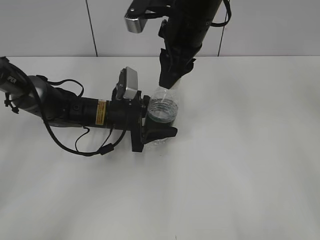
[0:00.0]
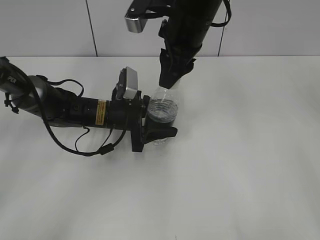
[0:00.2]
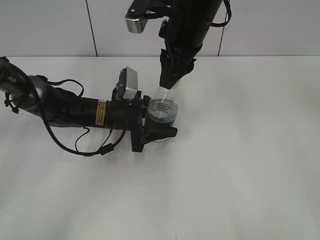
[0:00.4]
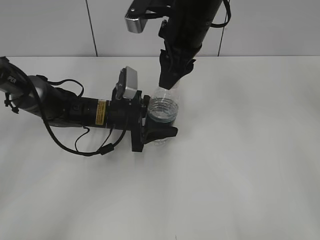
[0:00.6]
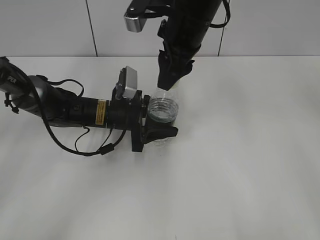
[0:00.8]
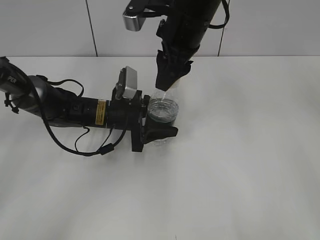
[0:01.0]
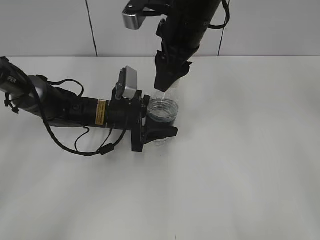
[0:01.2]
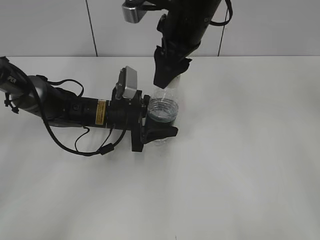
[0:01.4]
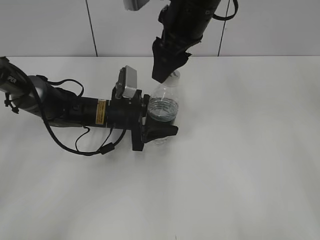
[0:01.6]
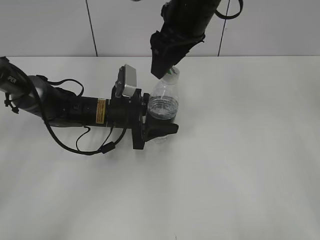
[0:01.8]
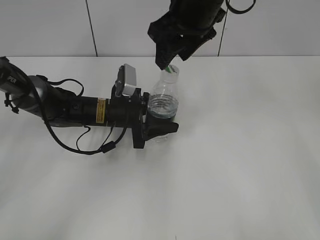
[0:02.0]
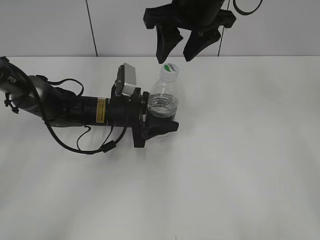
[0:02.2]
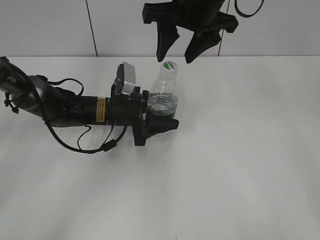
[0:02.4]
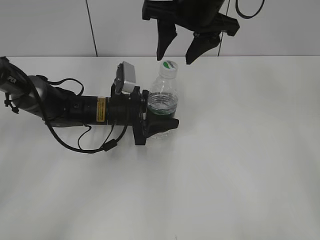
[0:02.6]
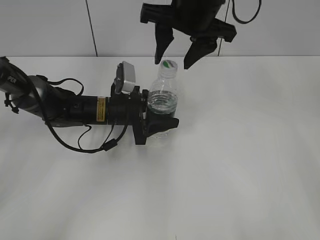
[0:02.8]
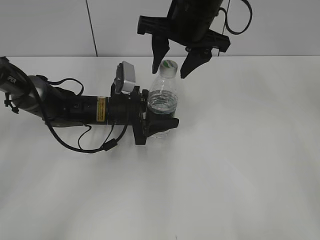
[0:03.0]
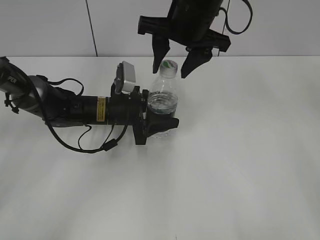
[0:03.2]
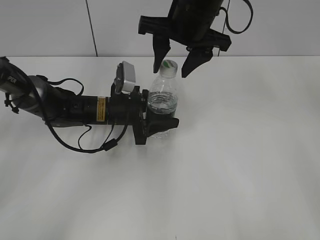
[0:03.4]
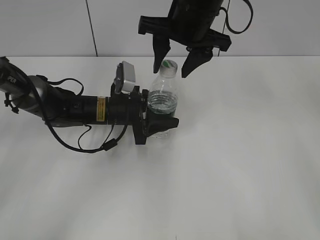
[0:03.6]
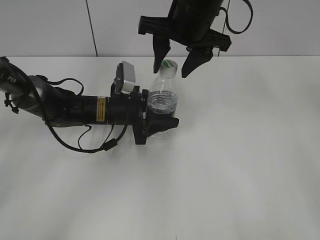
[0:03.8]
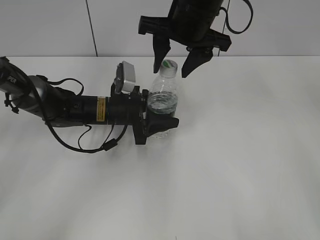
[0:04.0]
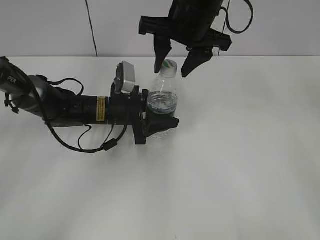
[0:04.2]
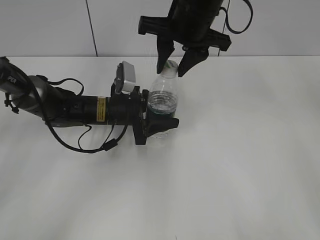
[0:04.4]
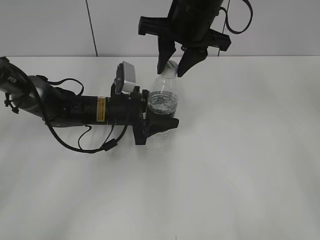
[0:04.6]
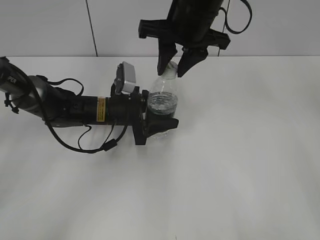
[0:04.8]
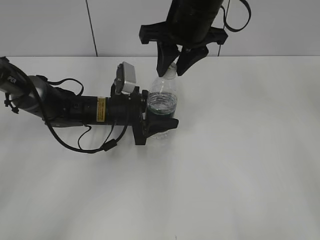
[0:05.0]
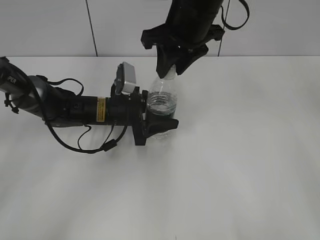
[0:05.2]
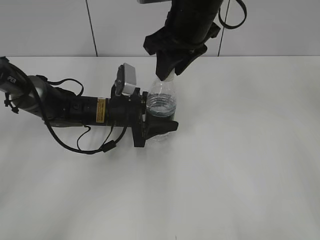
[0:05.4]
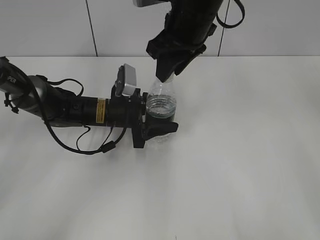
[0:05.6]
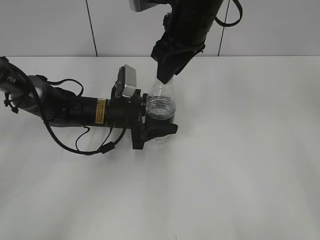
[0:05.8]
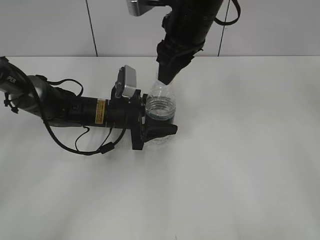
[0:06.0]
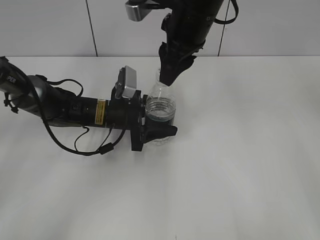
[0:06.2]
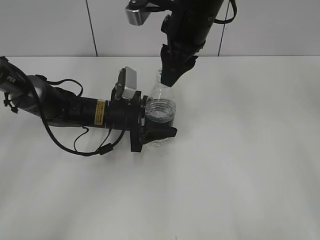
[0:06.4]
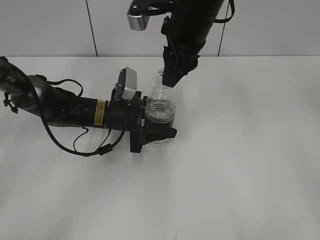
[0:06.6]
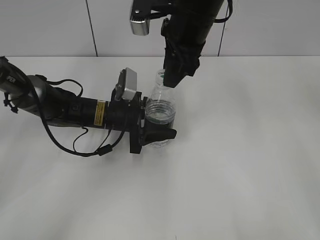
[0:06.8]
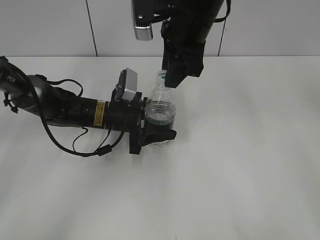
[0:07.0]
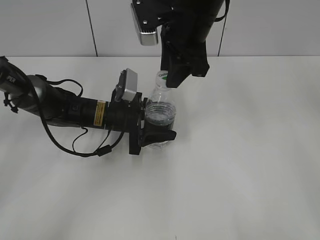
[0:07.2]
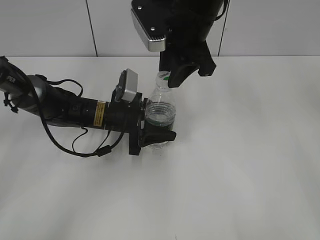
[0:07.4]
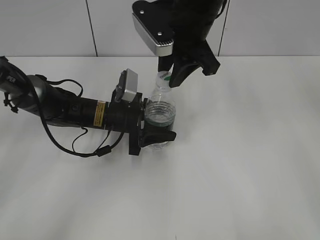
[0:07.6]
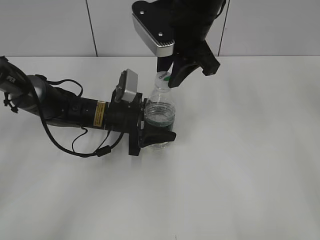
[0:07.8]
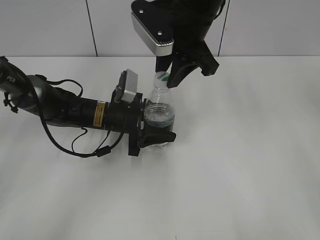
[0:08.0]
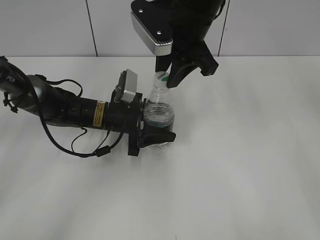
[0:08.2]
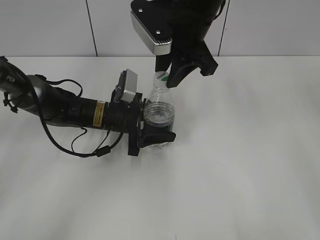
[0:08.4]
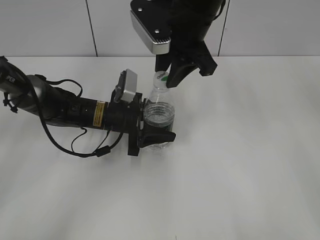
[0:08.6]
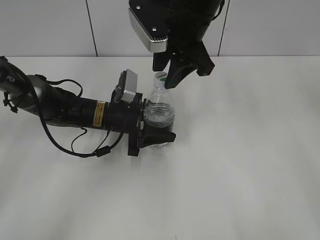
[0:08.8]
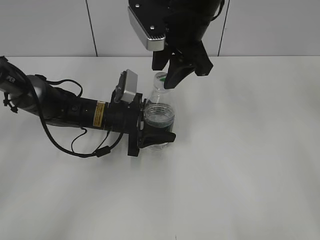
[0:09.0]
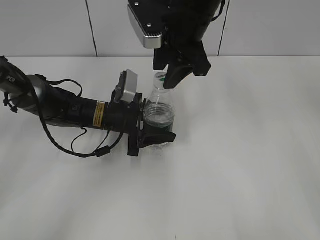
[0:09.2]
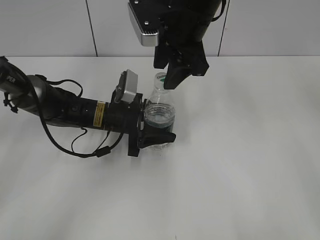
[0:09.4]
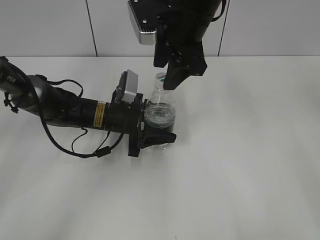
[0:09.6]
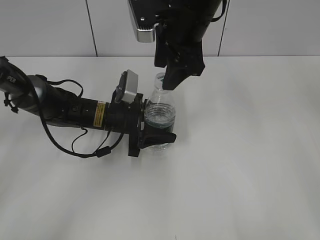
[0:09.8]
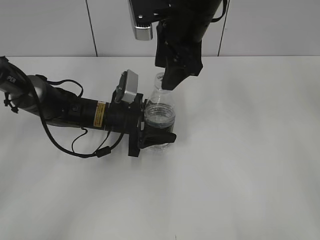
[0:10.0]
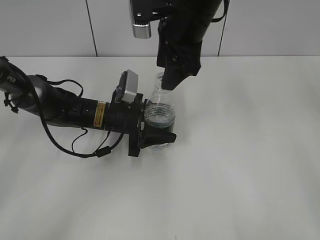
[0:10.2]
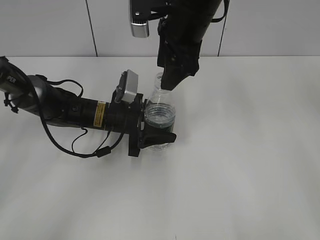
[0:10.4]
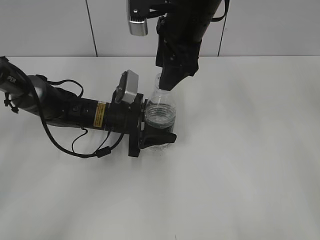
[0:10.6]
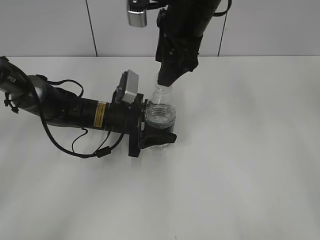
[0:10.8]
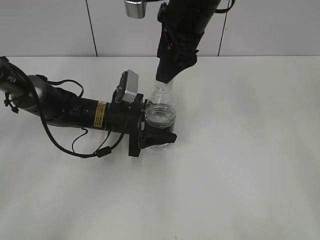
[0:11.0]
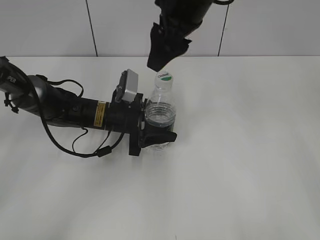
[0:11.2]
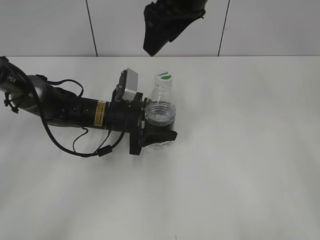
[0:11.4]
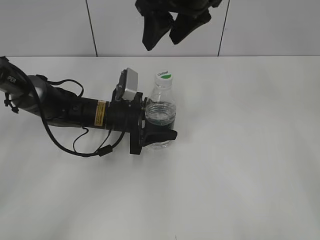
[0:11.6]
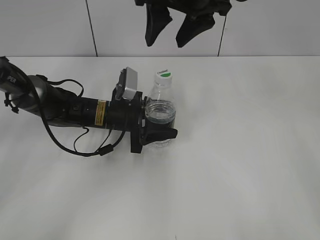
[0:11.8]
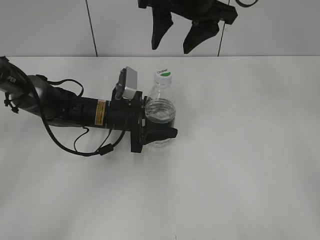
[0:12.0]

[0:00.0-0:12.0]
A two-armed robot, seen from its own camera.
0:00.0 to 0:01.6: The right gripper opens up.
0:03.0 to 0:04.4: The right gripper closes.
0:07.6 to 0:09.0: The right gripper opens its fingers.
0:09.0 to 0:10.4: The right gripper opens its fingers.

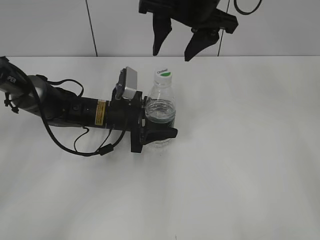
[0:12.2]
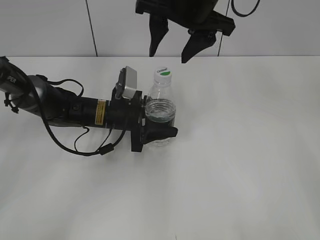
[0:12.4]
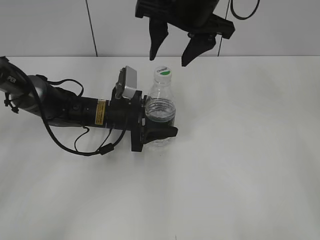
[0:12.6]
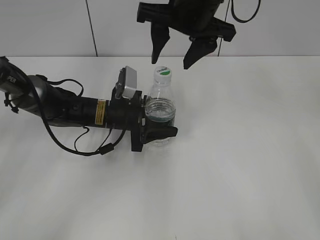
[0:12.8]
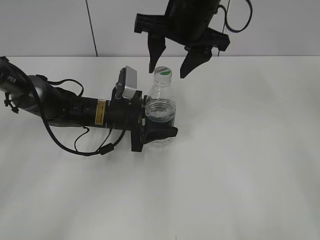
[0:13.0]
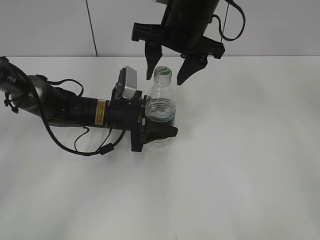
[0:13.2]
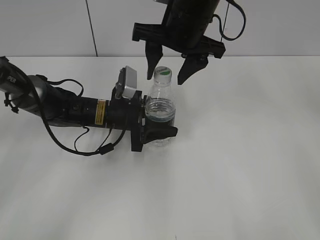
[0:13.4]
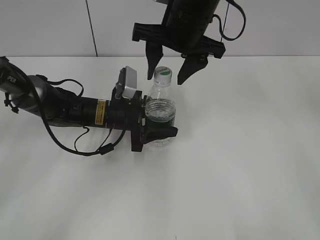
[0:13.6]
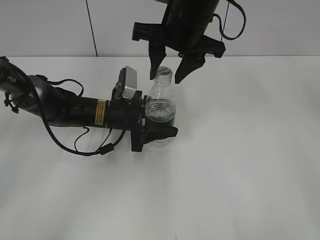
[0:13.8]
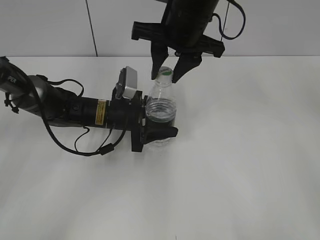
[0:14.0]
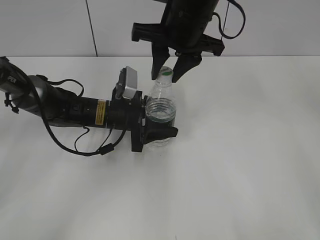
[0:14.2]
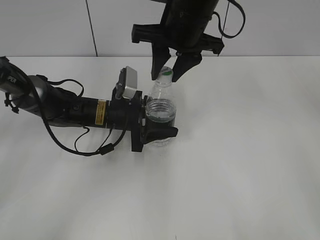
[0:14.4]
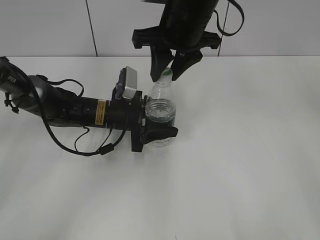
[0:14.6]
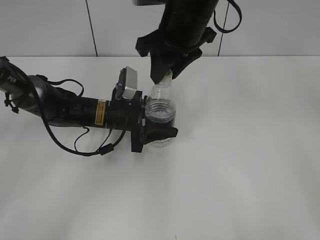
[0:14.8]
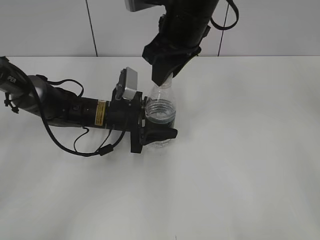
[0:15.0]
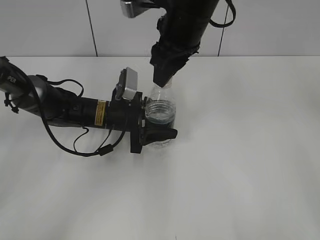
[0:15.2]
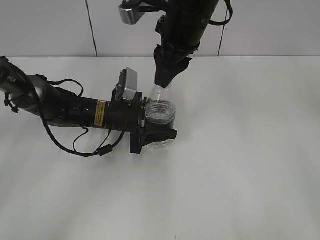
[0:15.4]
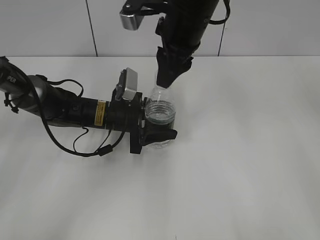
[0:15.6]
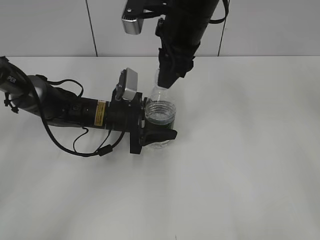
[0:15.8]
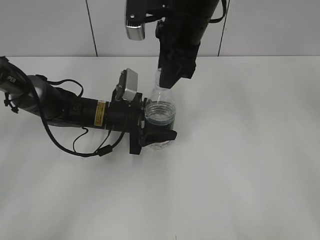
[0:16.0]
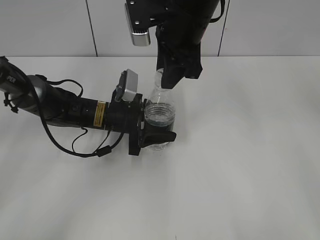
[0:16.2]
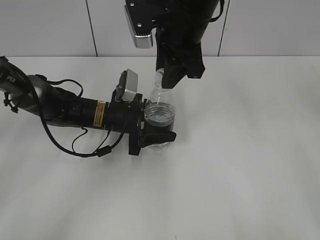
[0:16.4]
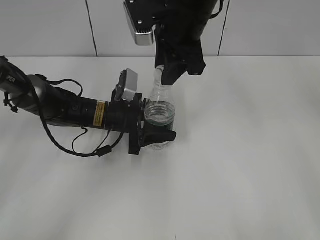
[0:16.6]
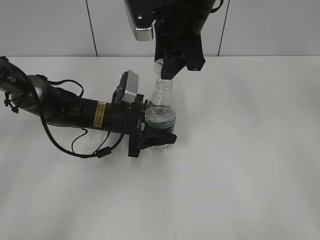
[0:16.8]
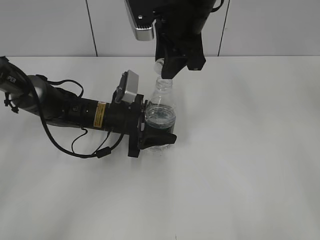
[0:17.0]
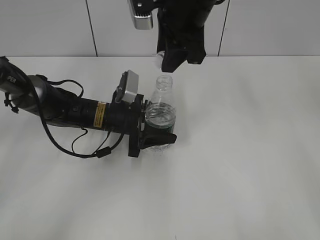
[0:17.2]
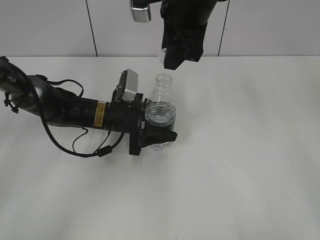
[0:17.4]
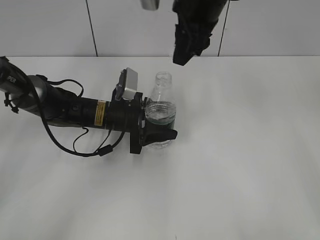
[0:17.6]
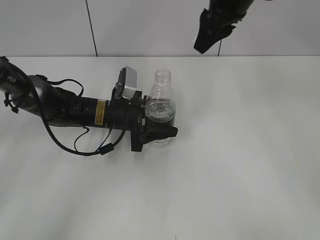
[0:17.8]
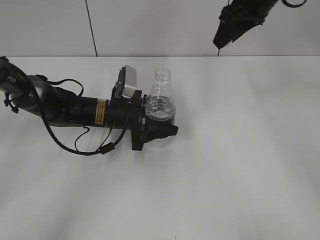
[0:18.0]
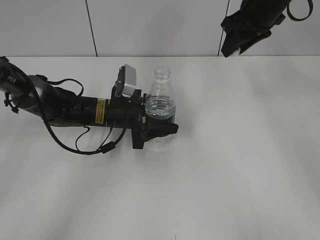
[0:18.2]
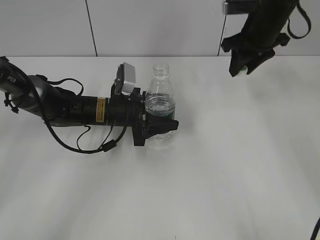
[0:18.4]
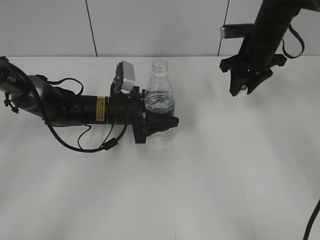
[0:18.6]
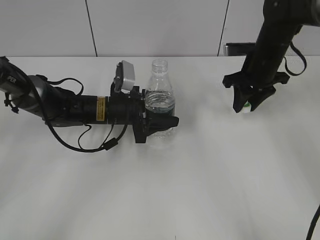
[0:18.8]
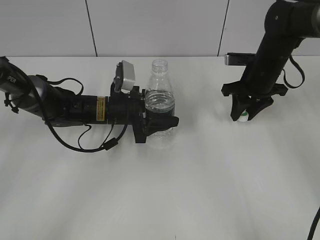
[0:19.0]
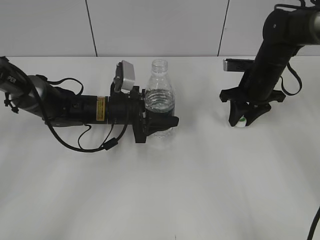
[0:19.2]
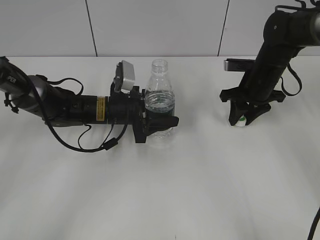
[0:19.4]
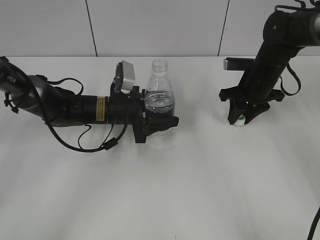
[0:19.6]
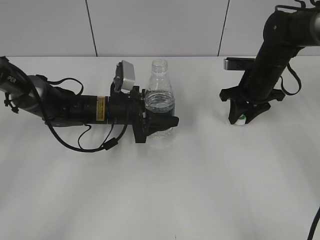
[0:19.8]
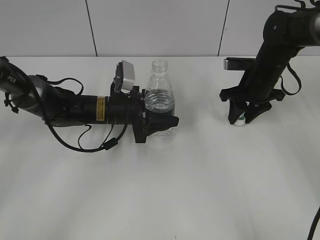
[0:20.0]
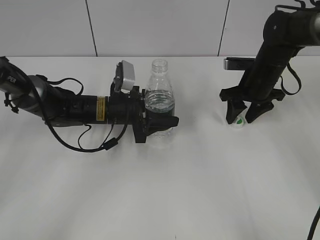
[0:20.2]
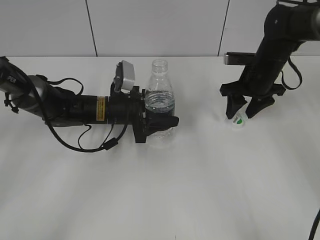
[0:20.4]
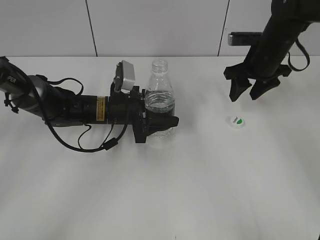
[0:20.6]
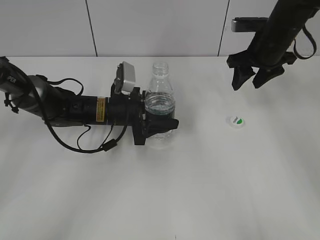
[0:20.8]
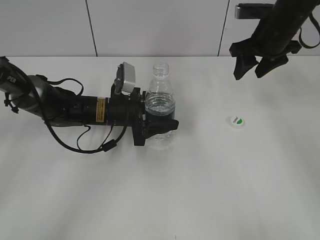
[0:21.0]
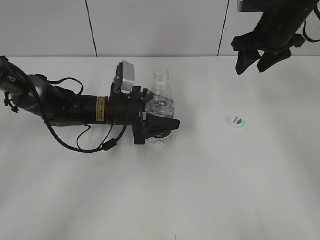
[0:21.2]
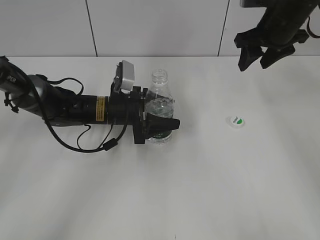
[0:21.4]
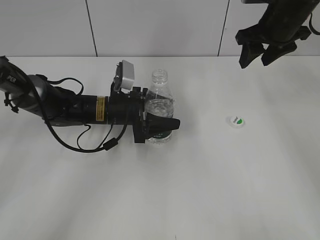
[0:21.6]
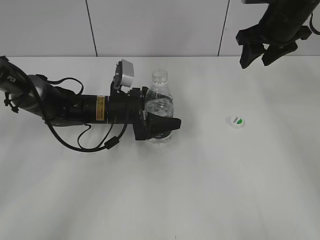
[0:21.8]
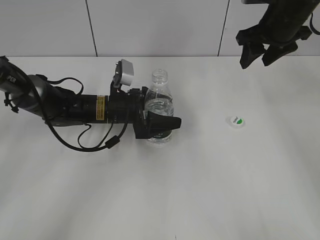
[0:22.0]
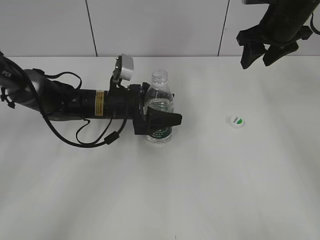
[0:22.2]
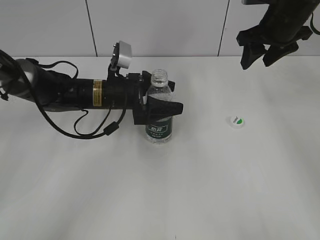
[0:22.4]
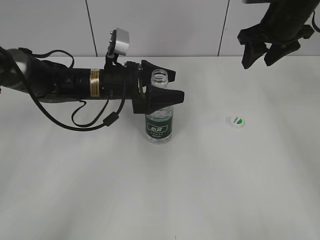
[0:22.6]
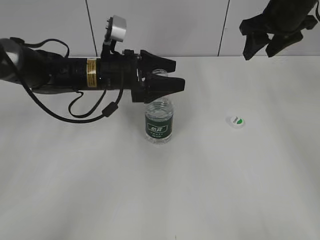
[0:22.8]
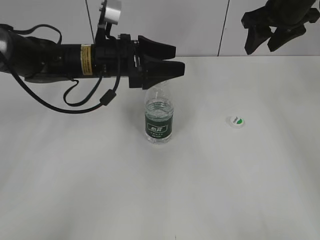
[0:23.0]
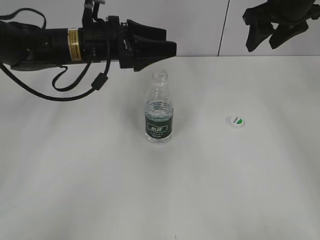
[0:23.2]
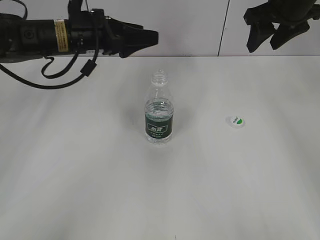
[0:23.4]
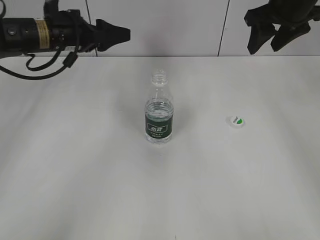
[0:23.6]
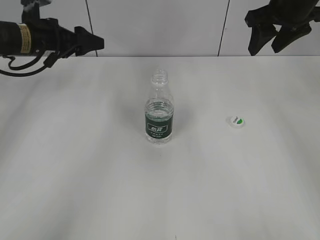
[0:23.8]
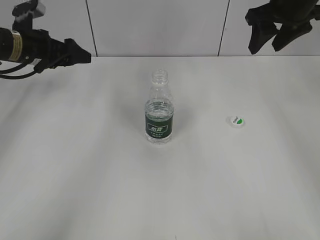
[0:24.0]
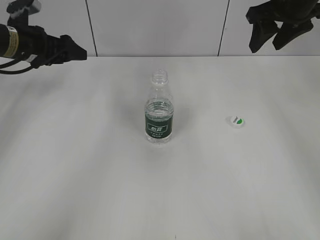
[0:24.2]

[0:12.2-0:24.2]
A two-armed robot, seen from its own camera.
Step, 0:12.2 to 0:17.0: Unscrew the bottle cap with the right gripper while holding the bottle with the left gripper.
Step, 0:17.2 to 0:20.2: Place the bottle cap on the table with the right gripper.
Step, 0:20.6 to 0:22.4: Place the bottle on the table with the left gripper.
0:12.2 to 0:13.8: The grippers move only a little.
0:13.8 to 0:15.2: The right gripper closes up.
0:16.6 to 0:18.2: The right gripper moves to the right and forward, roughly 15 cm.
0:18.2 to 0:19.8: The right gripper goes approximately 15 cm downward.
0:19.8 to 0:21.2: The right gripper shifts roughly 10 cm upward, and opens.
0:21.2 to 0:22.6: The left gripper heads upward, covering some 5 cm, and opens its fingers.
0:22.6 to 0:24.2: The left gripper is displaced to the left by roughly 15 cm.
